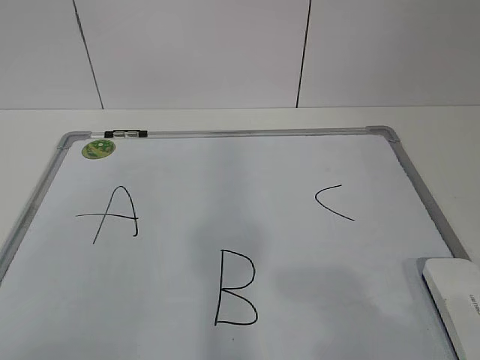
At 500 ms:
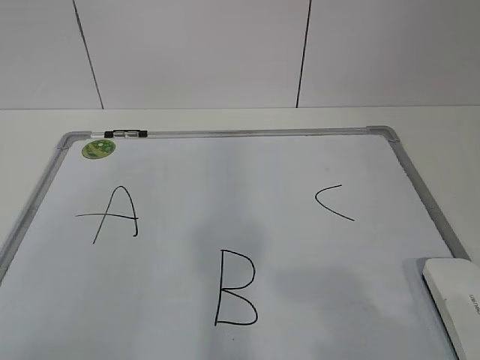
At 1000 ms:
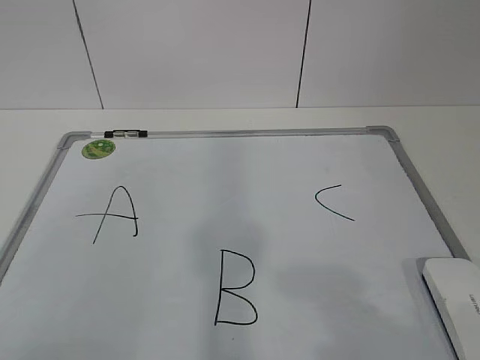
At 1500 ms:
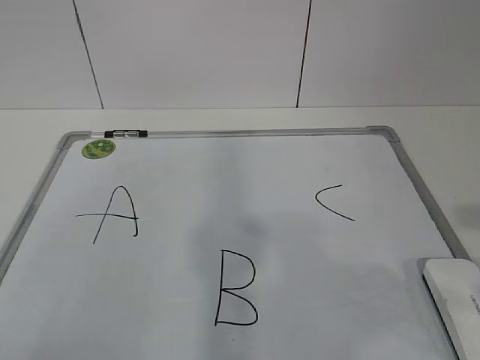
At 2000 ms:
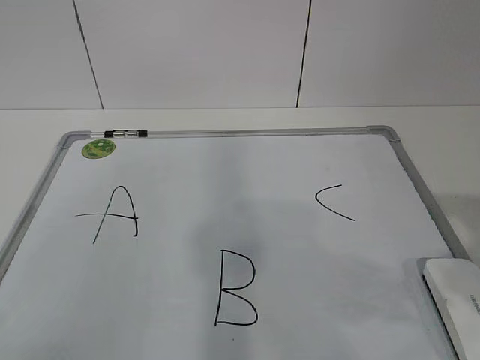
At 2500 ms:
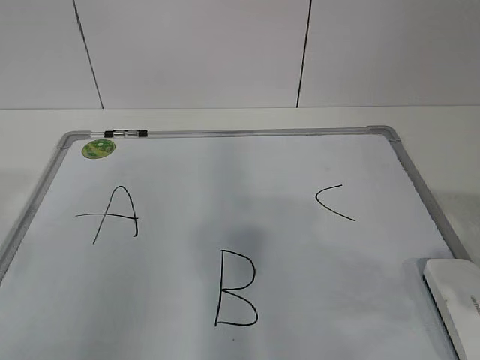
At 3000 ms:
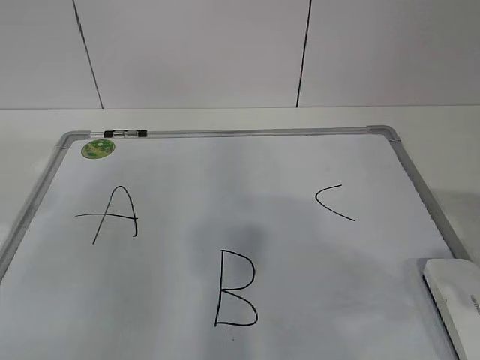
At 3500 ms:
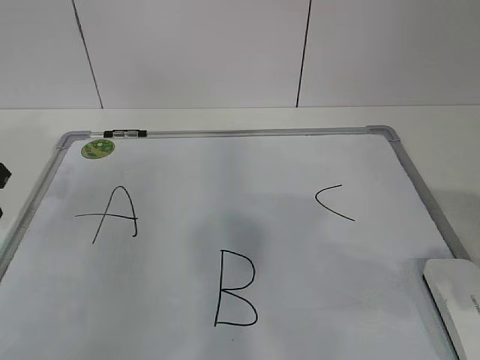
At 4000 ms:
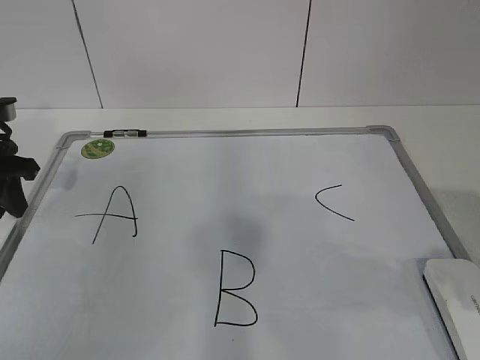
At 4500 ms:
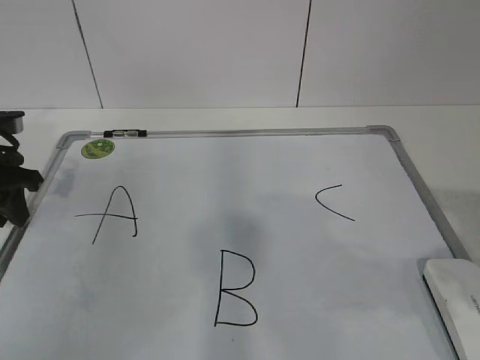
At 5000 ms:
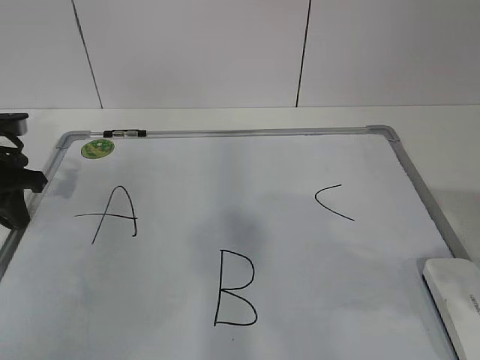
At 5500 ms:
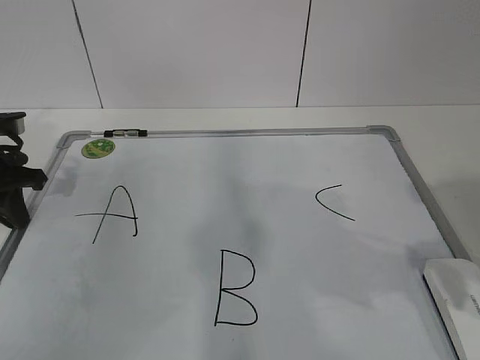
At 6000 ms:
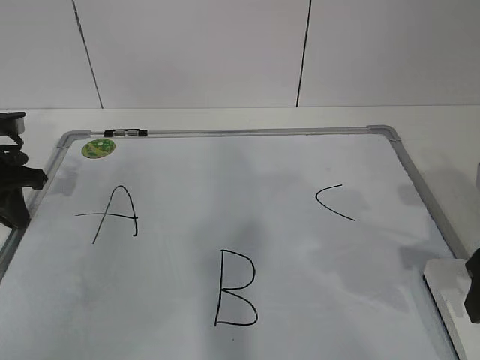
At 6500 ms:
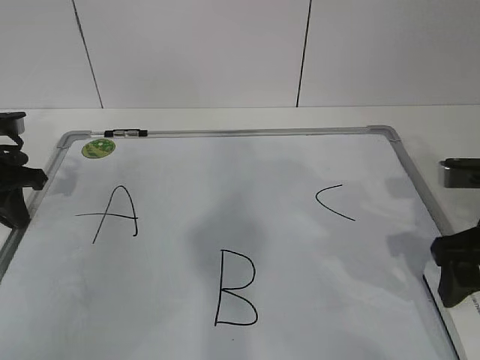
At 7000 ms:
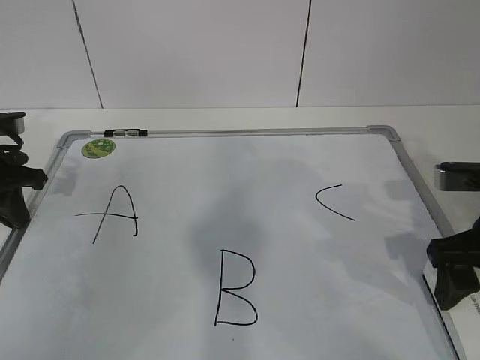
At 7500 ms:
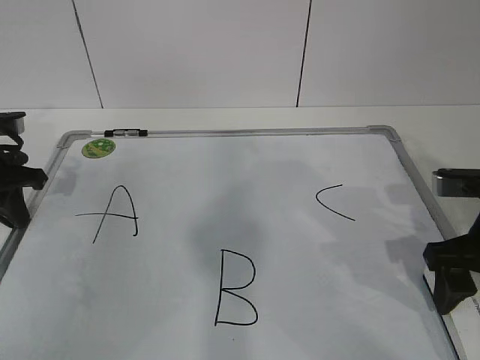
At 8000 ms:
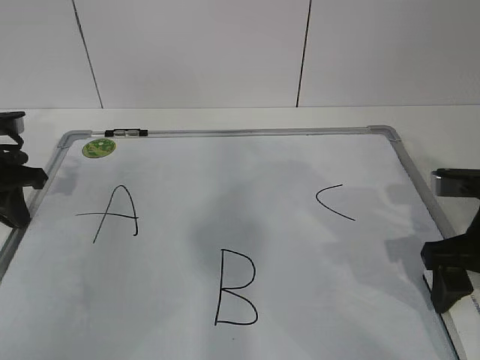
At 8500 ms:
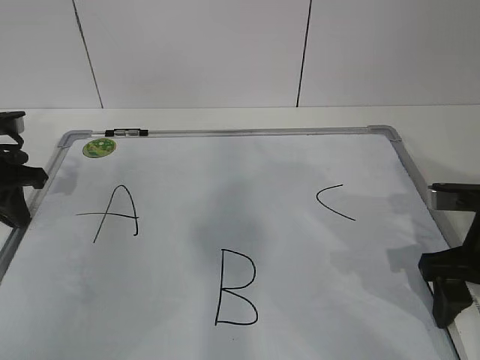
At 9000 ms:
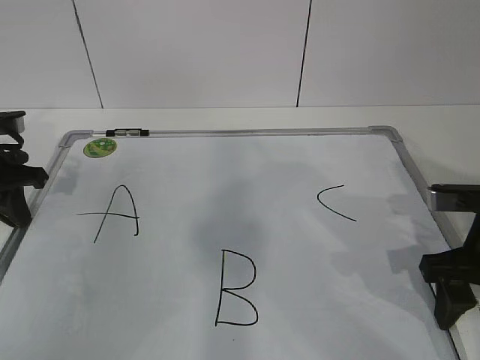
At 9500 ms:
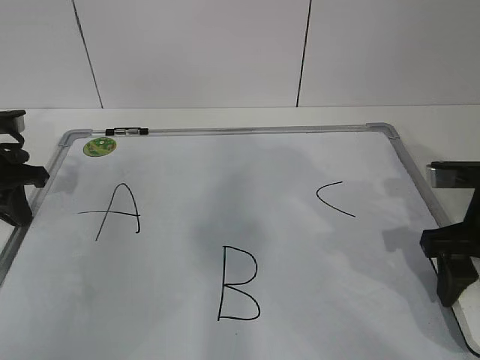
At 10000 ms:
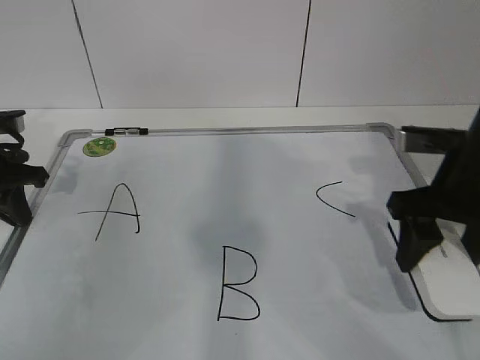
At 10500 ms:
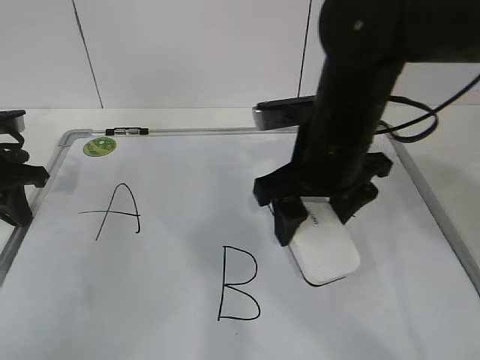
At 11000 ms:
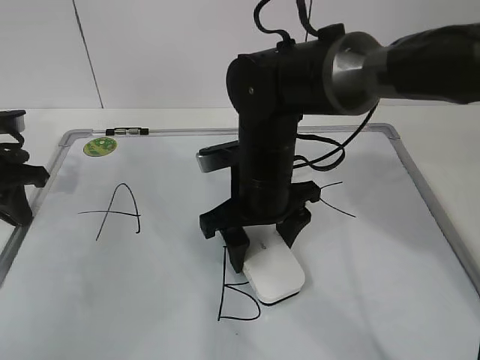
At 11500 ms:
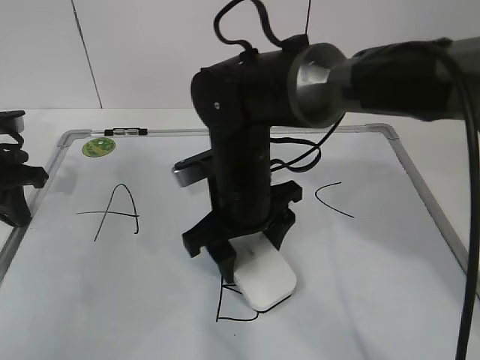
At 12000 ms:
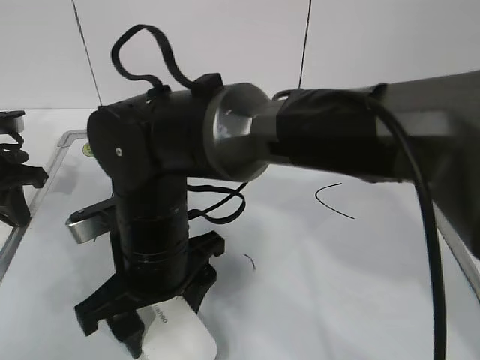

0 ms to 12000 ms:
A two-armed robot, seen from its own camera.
Task of the whole recording: pick up the eraser on the blackboard and erase the letter "B".
Step, 0 ms to 4000 ms: Hold the drawing board steady with your left hand.
Step, 4500 ms to 7000 ms: Grab the eraser with your right hand.
2000 ms to 4000 ms: The left gripper travels forward by roughly 35 cm.
4000 ms to 6000 ms: The right gripper is displaced forward and downward by about 10 cm. The left gripper closes.
6000 ms to 8000 ms: The right gripper shifts approximately 5 cm forward.
8000 ms to 10000 ms: The right gripper changes place by approximately 5 cm.
10000 ms to 12000 ms: The right gripper moves to the left, roughly 30 cm.

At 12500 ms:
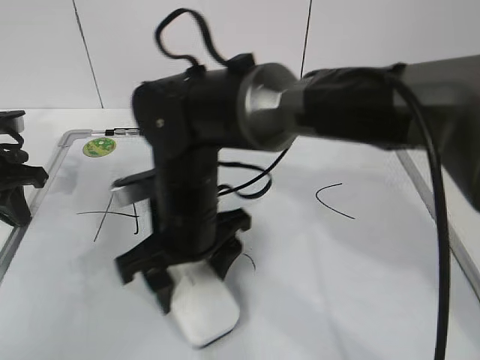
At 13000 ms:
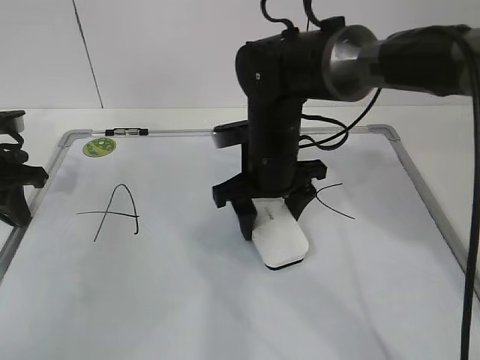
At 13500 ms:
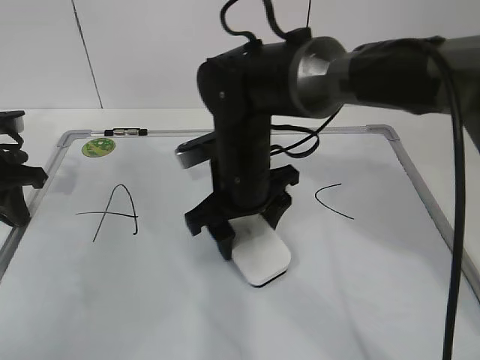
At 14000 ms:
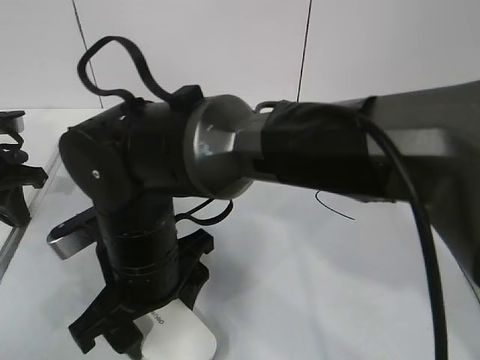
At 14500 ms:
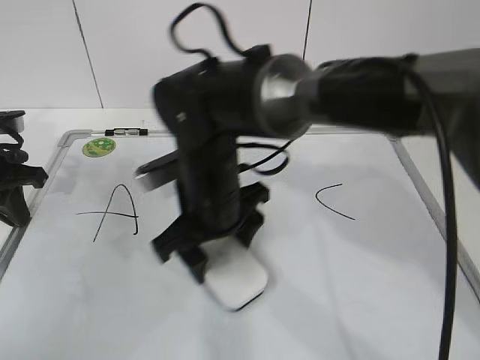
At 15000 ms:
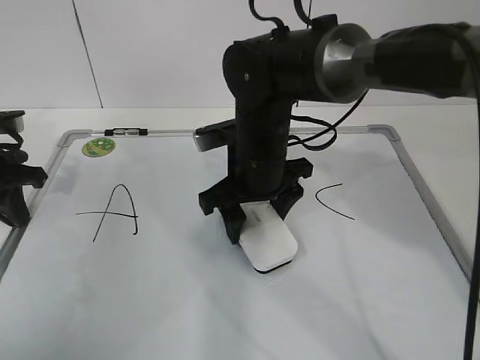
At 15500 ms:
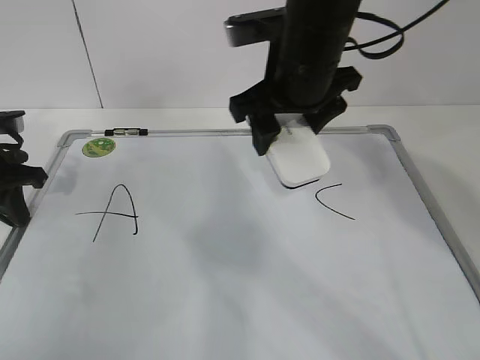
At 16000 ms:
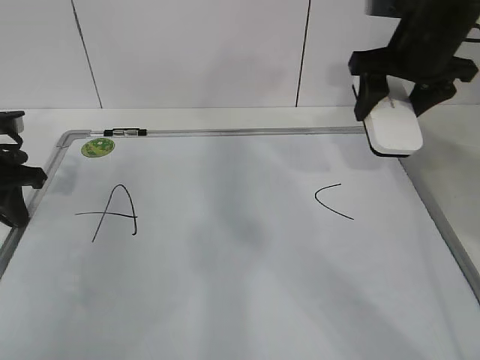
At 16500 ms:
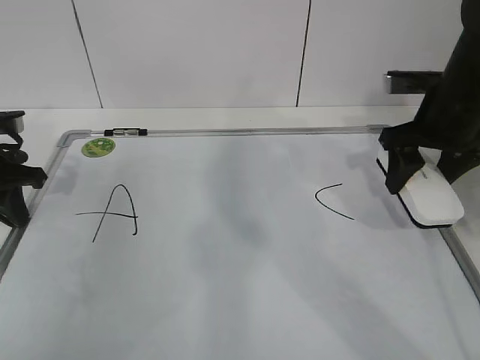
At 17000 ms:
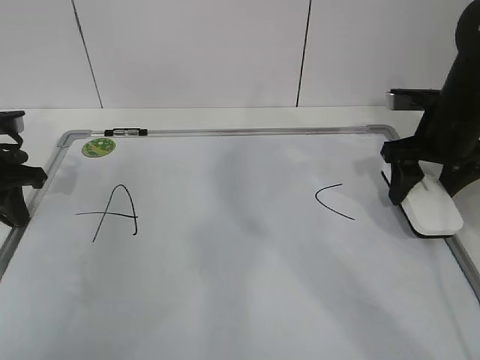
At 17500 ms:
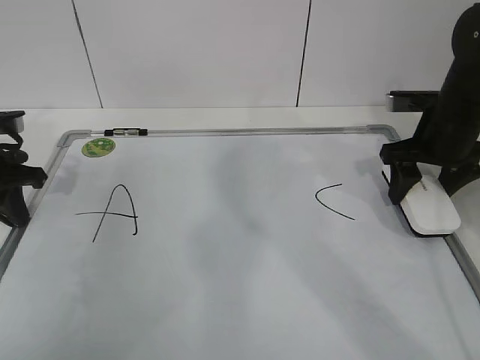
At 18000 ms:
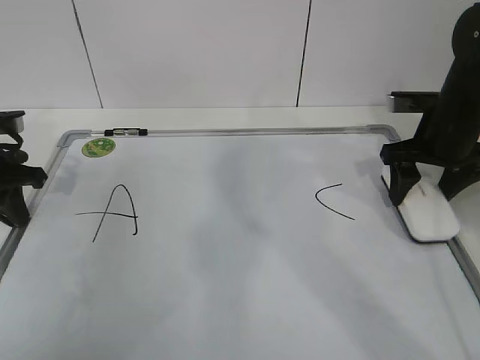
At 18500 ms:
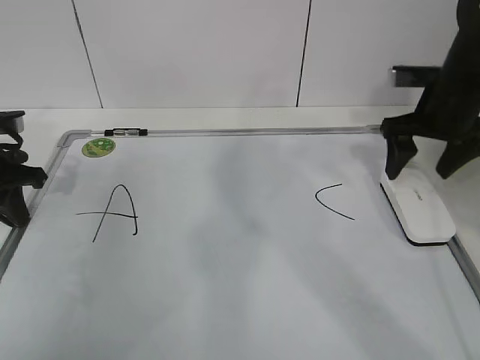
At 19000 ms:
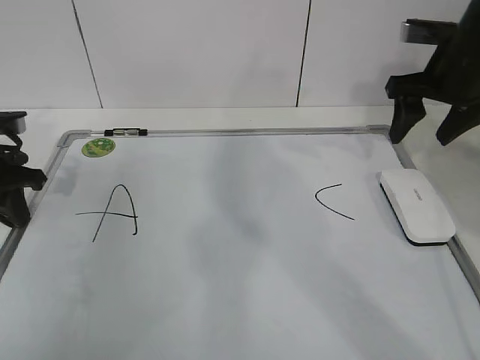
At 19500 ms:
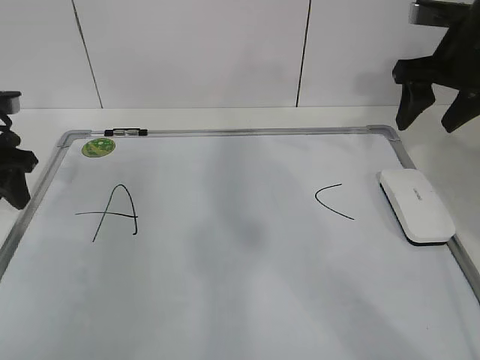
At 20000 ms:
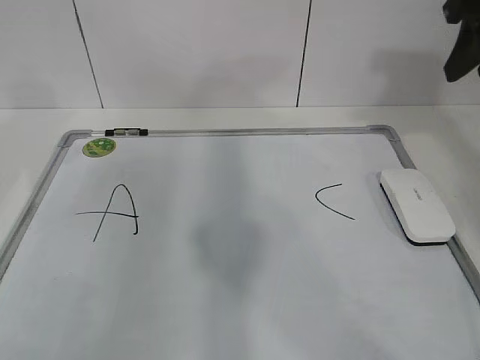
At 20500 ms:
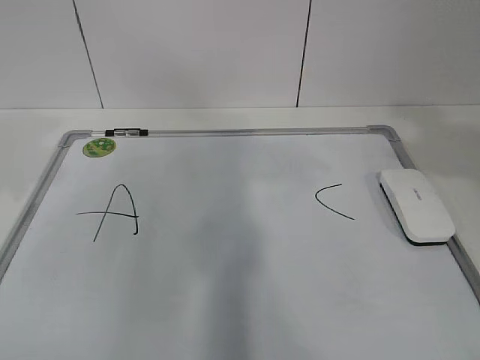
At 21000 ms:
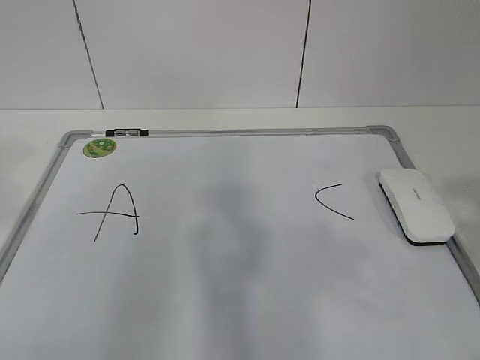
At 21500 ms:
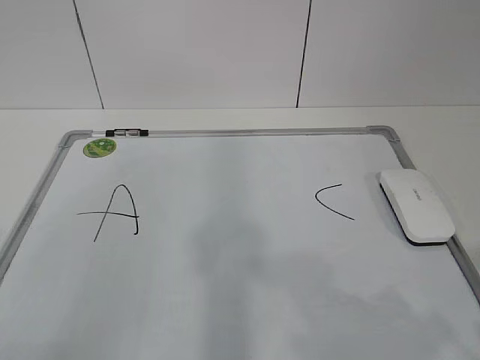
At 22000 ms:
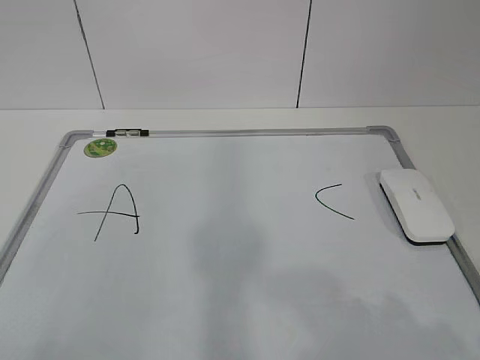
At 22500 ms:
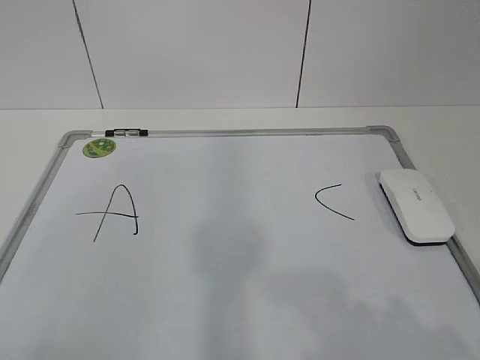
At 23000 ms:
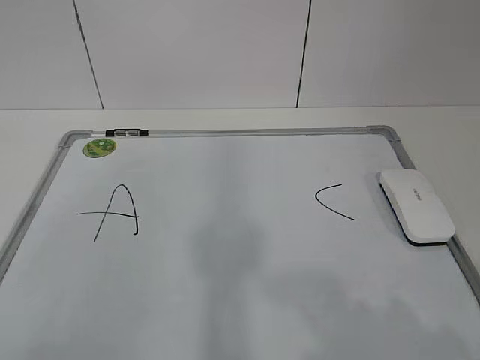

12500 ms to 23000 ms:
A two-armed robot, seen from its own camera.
Task of the whole recording: pick up the eraser on the blackboard and erase the letter "B".
Step, 12500 ms to 14500 ms: Put down the eraser with your right hand.
12500 ms to 14500 ms: The right gripper moves forward and backward over some 15 cm, changing direction 2 times.
14500 ms to 16500 ms: The right gripper moves to the right, some 25 cm.
16500 ms to 19000 ms: The grippers move only a little.
19000 ms to 21000 ms: The right gripper shifts approximately 35 cm backward, and closes. The left gripper goes some 30 cm backward and upward, and opens its fingers.
21000 ms to 23000 ms: The right gripper travels downward by about 10 cm.
